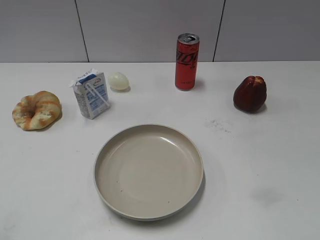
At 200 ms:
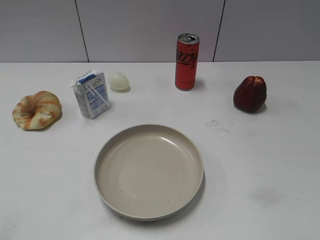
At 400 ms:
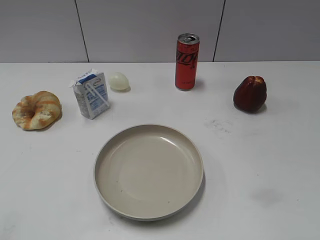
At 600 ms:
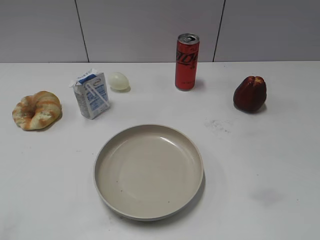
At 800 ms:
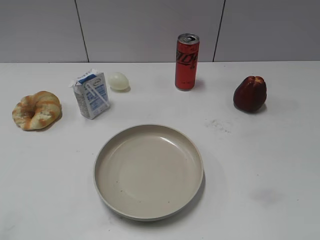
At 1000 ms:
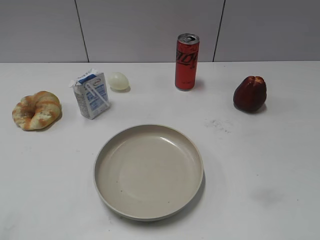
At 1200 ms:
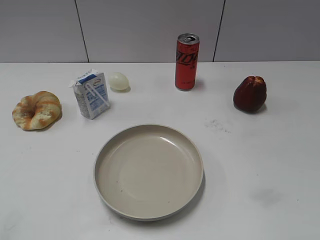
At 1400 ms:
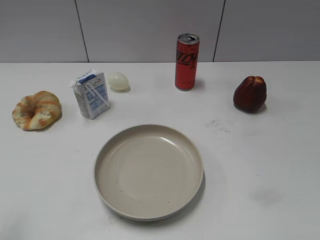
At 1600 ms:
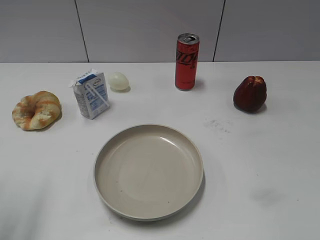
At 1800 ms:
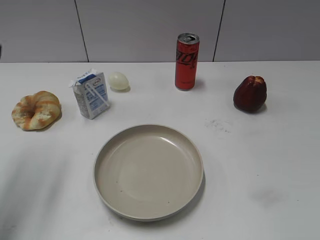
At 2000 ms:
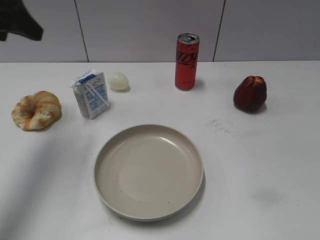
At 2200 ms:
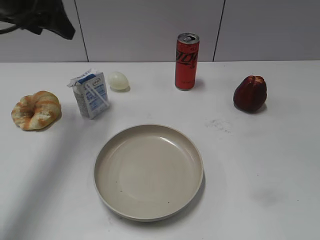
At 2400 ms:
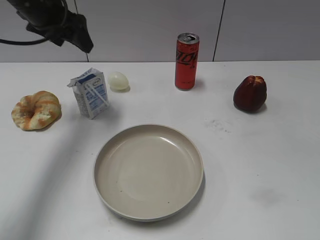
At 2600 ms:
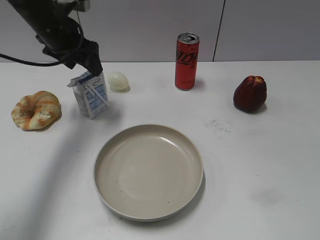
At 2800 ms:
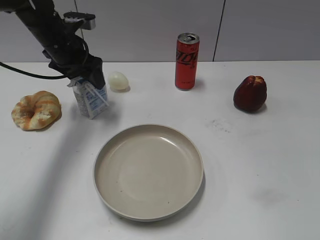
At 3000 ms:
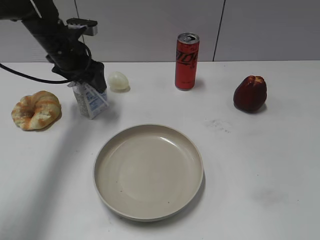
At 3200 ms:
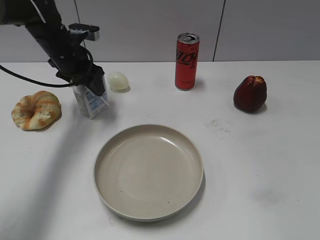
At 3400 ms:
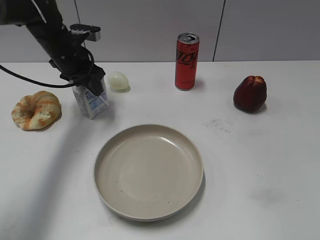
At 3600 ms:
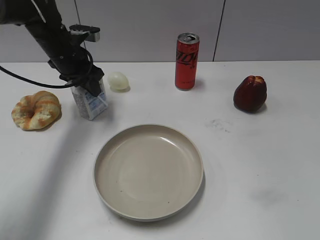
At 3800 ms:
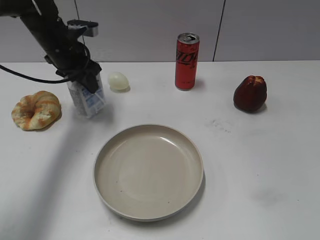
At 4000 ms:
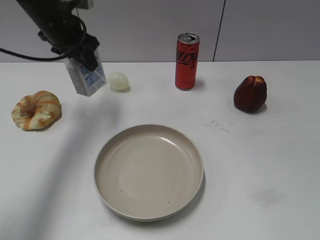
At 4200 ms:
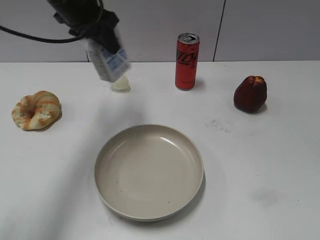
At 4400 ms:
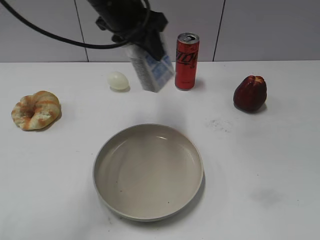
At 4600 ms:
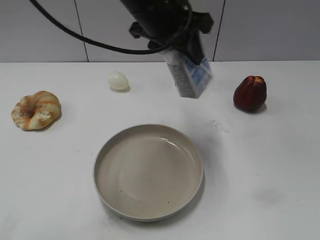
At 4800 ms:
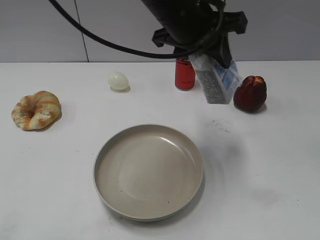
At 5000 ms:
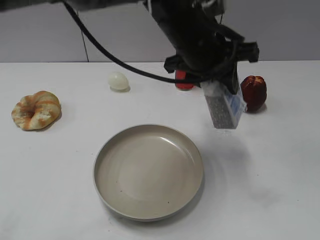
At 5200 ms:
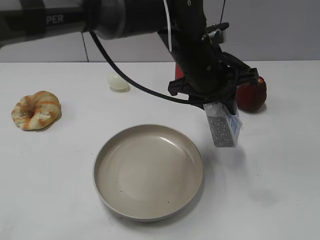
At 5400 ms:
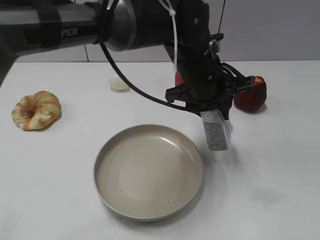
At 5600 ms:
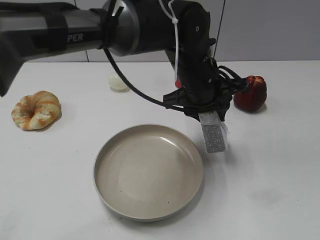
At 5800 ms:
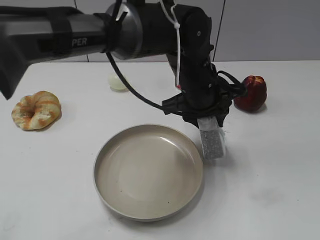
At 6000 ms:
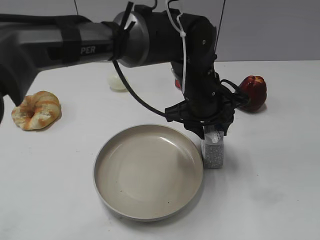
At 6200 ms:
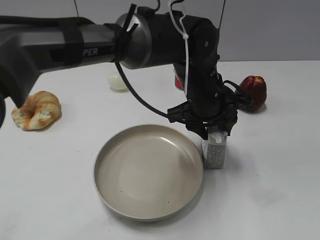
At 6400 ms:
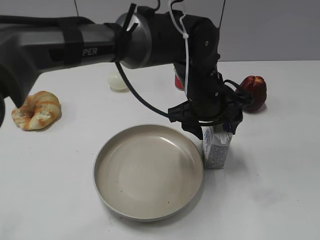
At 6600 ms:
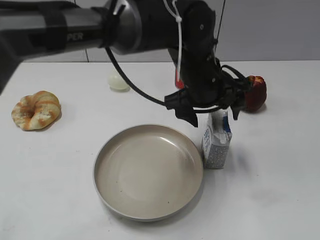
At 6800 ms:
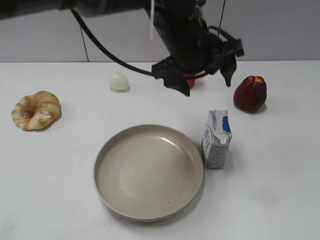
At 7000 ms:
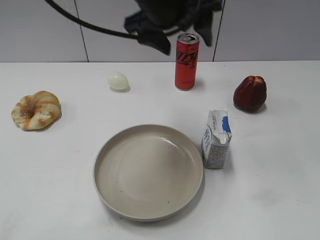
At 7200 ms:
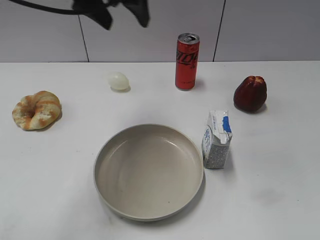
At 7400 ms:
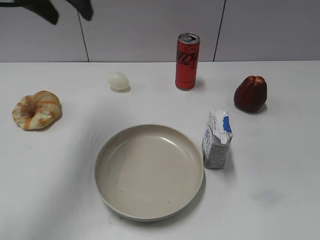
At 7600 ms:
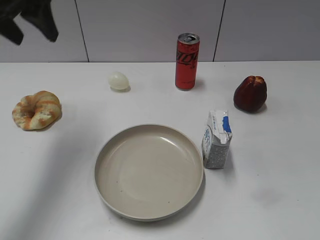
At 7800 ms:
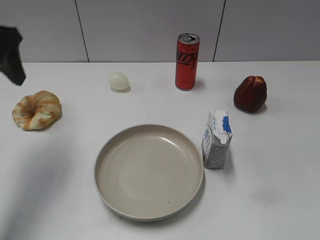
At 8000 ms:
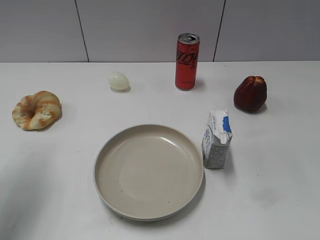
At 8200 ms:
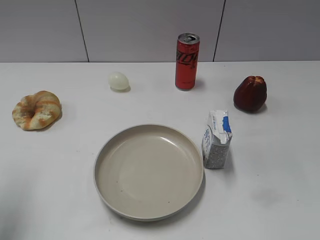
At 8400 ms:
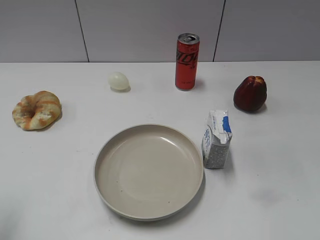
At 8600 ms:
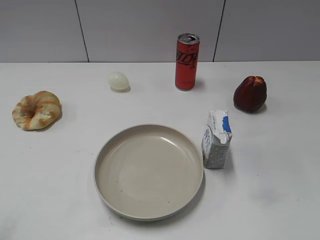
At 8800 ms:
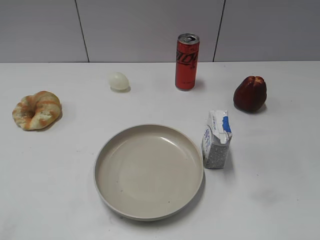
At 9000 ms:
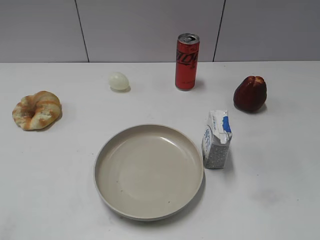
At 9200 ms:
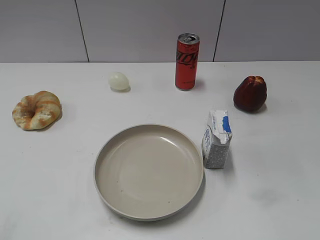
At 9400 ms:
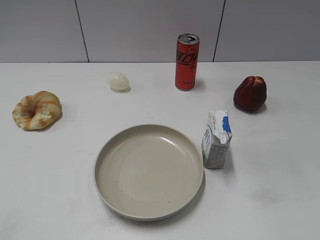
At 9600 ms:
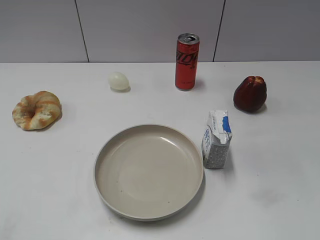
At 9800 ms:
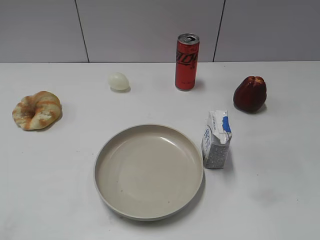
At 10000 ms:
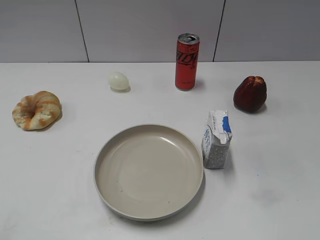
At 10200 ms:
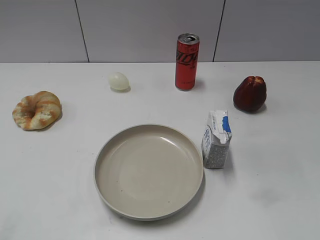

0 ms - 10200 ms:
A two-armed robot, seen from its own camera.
Step, 800 ms - 3800 ms: Grasp the milk with left gripper.
Step, 4000 ms - 6600 ms: Place the milk on the table with left gripper.
1400 ms - 3000 ms: The left gripper heads forward, downward and to the right, covering about 35 cm.
3000 ms - 4400 ms: The left gripper goes roughly 25 cm to the right, upward and backward, and closes its fingers.
4400 ms - 5800 ms: The left gripper moves downward and to the right, some 15 cm.
5800 ms - 7200 ms: The left gripper shifts some 30 cm to the left and upward, and opens up.
7200 ms - 8800 ms: The left gripper shifts about 35 cm backward and to the left.

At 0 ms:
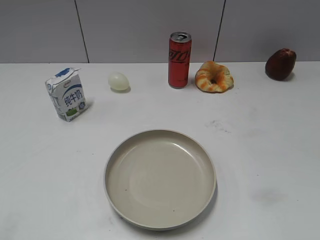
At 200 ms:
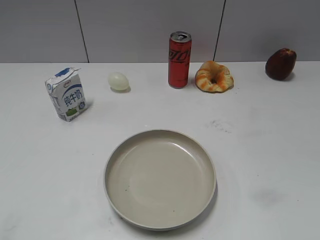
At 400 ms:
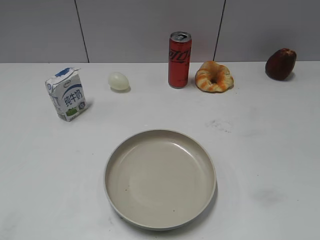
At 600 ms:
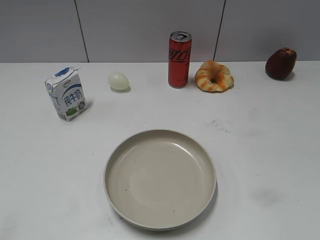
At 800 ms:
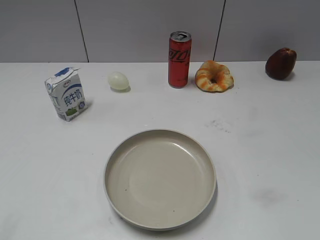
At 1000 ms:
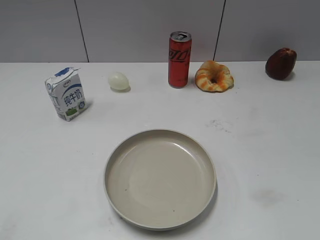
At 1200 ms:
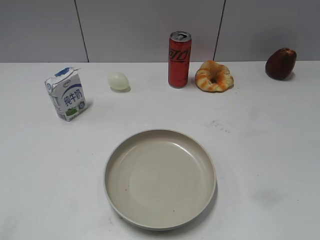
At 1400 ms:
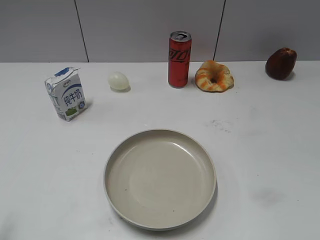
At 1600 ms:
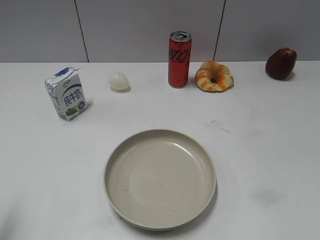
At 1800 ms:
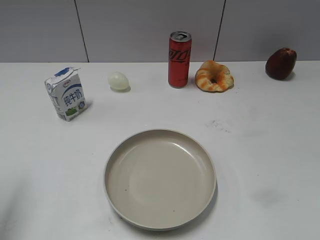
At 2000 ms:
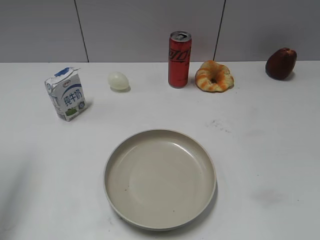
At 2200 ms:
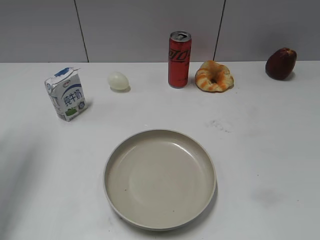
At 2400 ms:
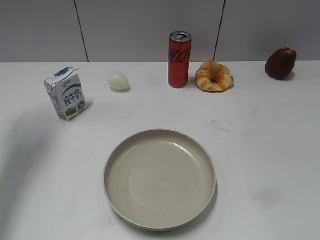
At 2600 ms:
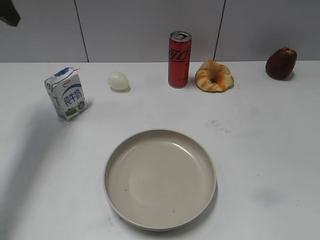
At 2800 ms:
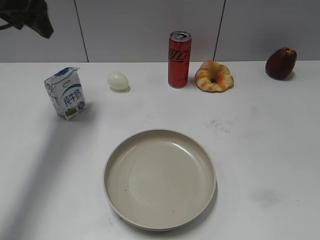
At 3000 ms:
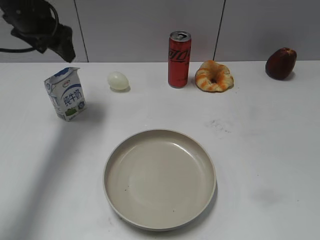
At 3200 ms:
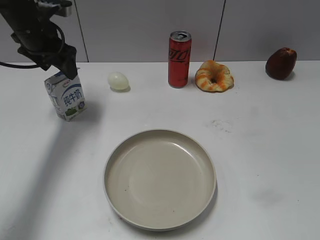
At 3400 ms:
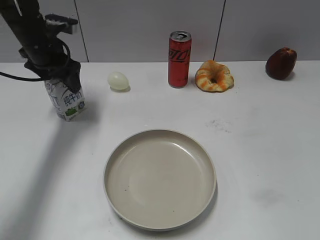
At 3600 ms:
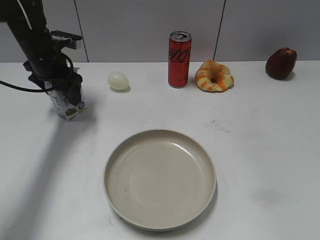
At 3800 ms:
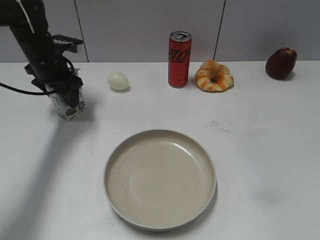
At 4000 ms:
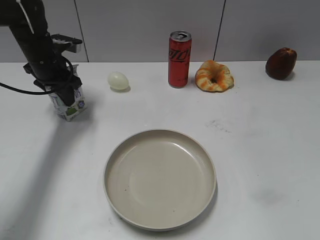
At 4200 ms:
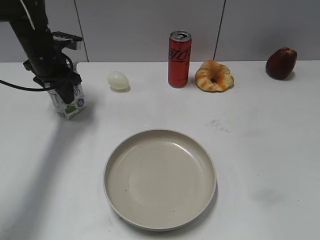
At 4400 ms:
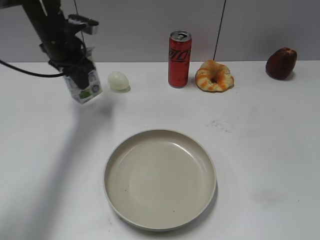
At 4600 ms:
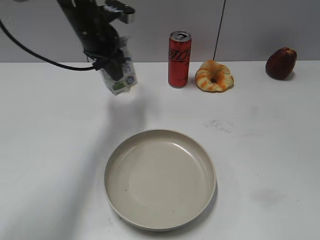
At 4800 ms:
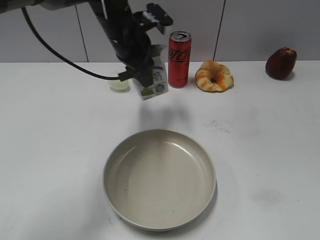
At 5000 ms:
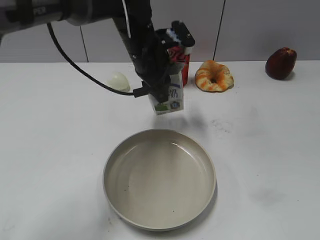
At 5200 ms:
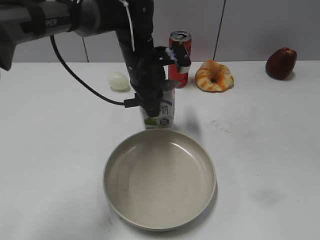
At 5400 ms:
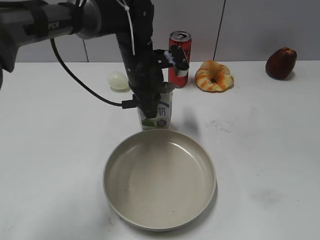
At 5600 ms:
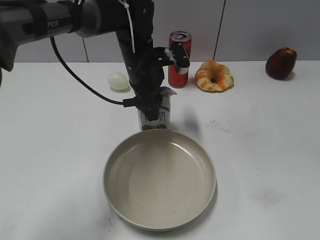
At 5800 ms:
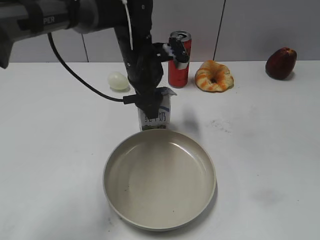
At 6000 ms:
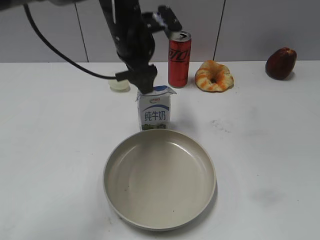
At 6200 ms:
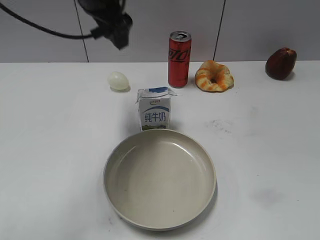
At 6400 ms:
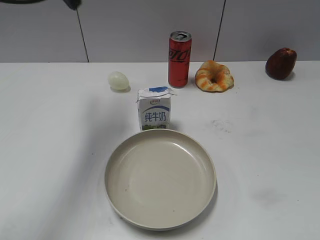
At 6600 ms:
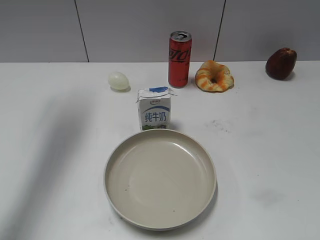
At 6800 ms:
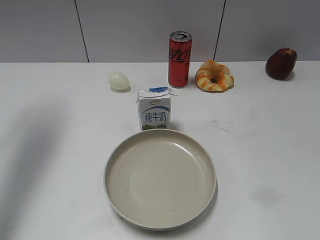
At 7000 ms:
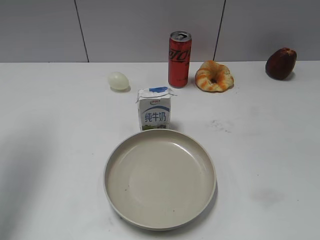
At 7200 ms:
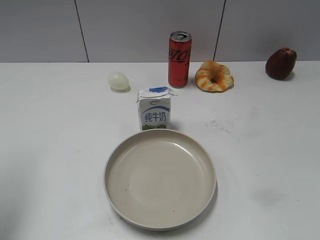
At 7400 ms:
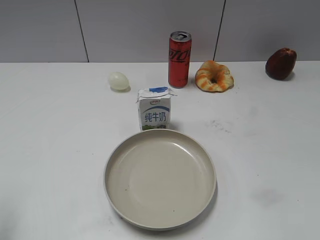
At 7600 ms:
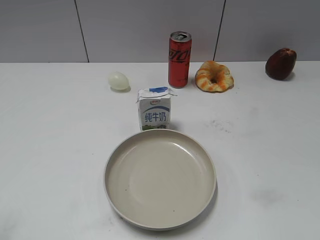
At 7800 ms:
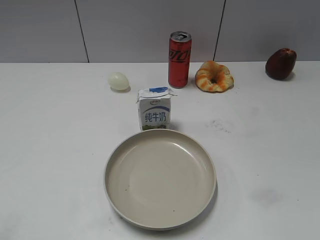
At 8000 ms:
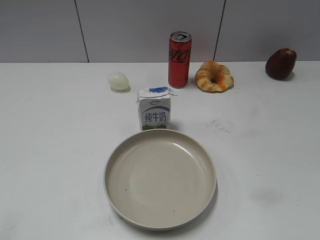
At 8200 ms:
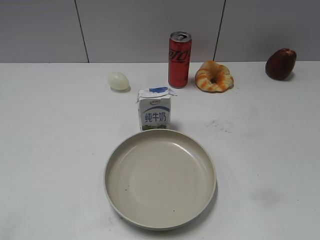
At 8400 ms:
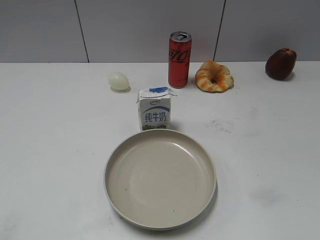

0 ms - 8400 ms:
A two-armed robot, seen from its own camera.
Step, 1000 ms - 4200 ms: Grasp the milk with left gripper.
Step, 4400 ms - 5600 ms: Place the milk on the table with left gripper.
1400 ms - 2800 ms: The left gripper goes approximately 35 cm forward.
2800 ms - 4200 ms: The left gripper shifts approximately 15 cm downward, and closes its fingers.
4200 ms - 5600 ms: The left gripper travels to the right by roughly 20 cm, and opens.
5600 ms - 7000 ms: The left gripper is displaced to the left and upward by about 35 cm.
7000 ms - 8400 ms: The left gripper is displaced backward by some 30 cm.
